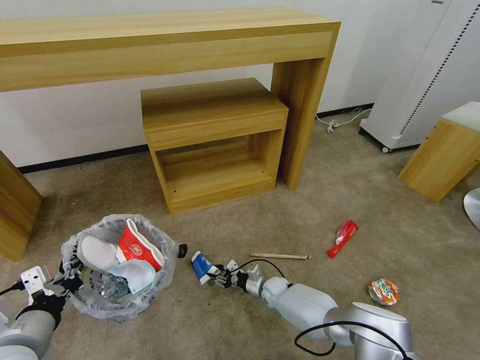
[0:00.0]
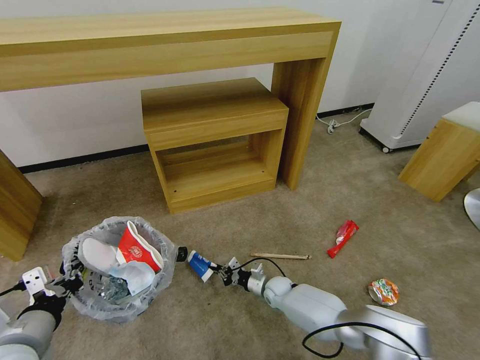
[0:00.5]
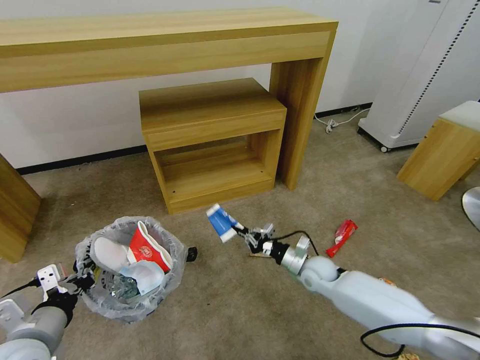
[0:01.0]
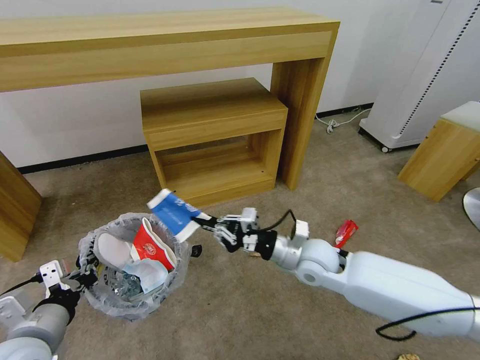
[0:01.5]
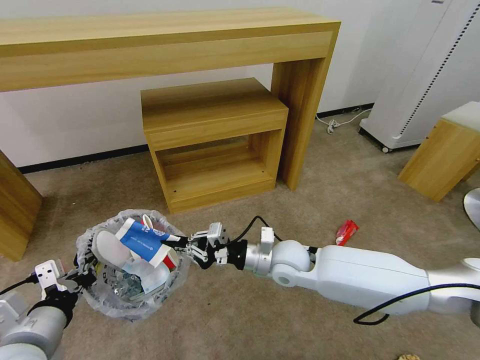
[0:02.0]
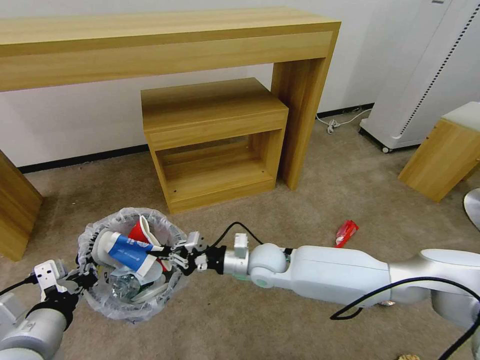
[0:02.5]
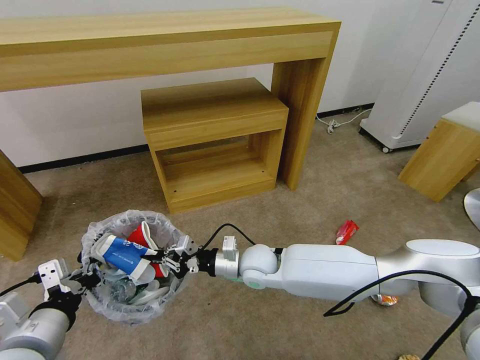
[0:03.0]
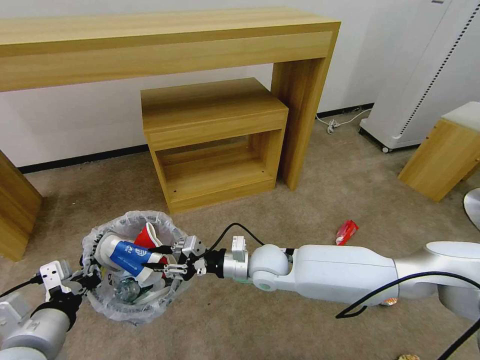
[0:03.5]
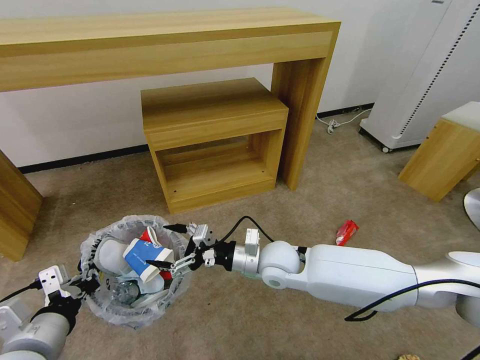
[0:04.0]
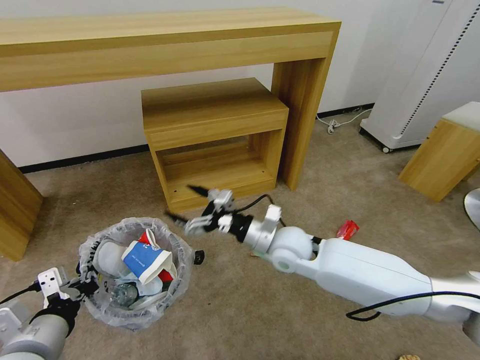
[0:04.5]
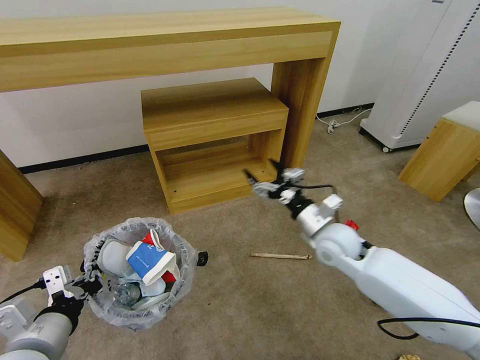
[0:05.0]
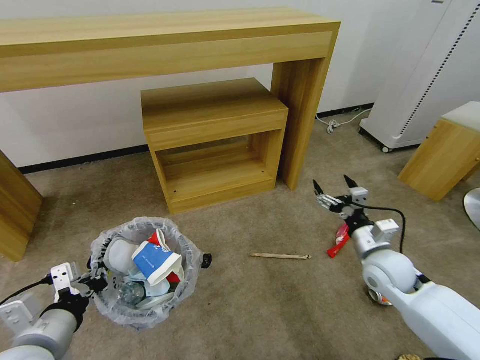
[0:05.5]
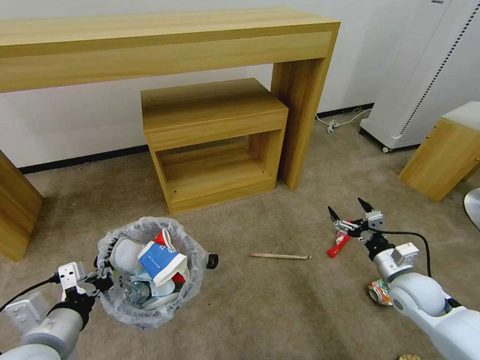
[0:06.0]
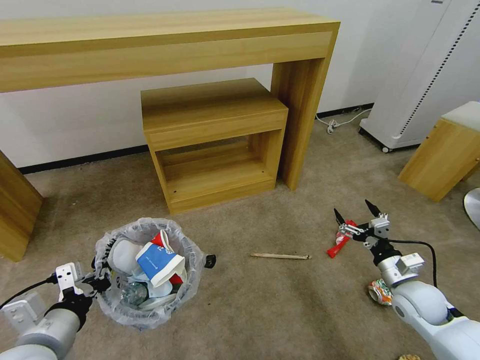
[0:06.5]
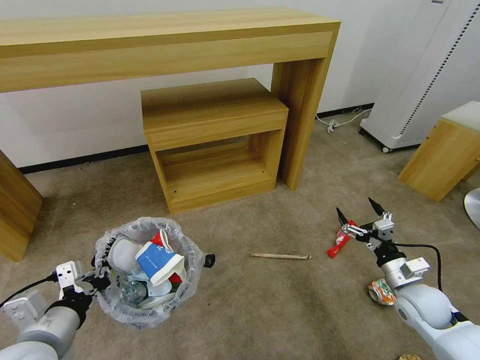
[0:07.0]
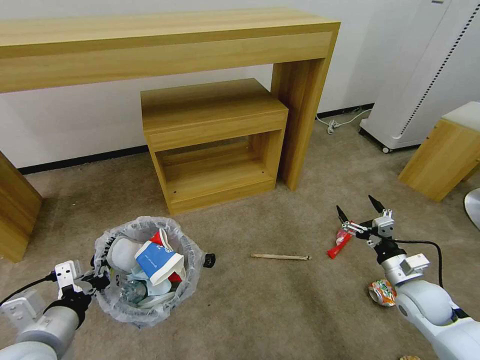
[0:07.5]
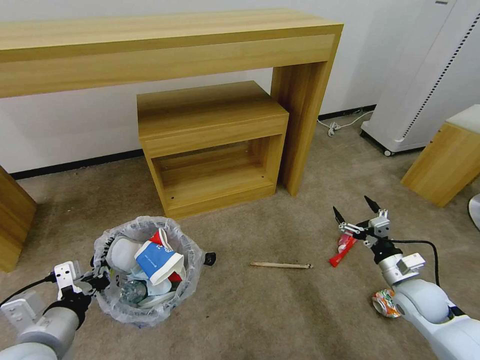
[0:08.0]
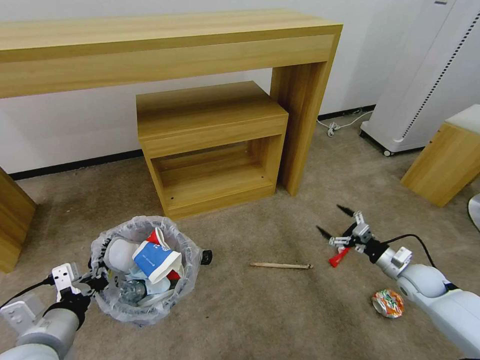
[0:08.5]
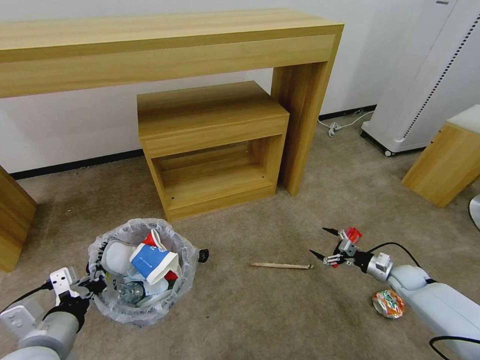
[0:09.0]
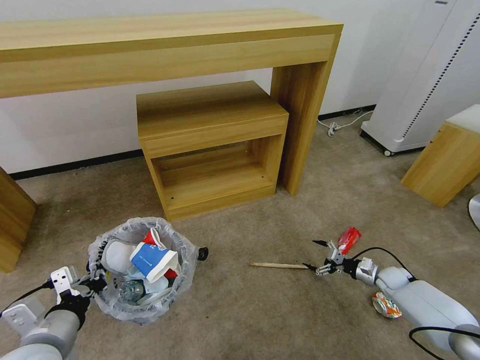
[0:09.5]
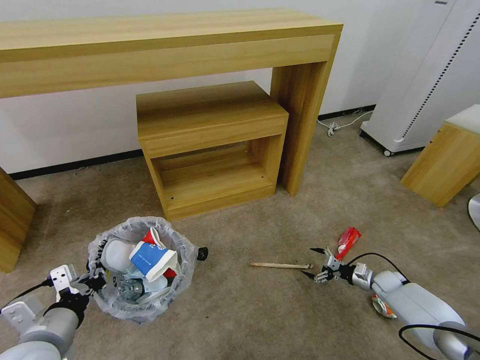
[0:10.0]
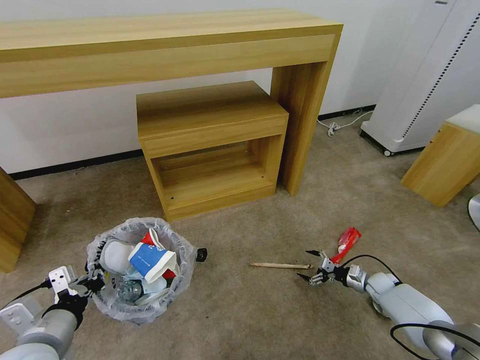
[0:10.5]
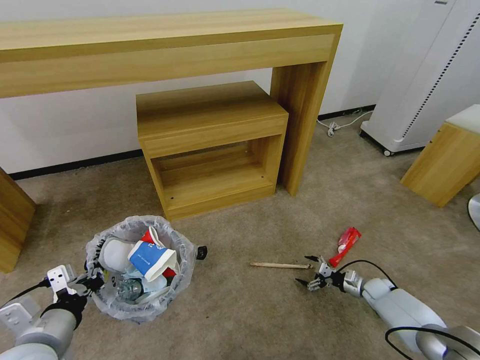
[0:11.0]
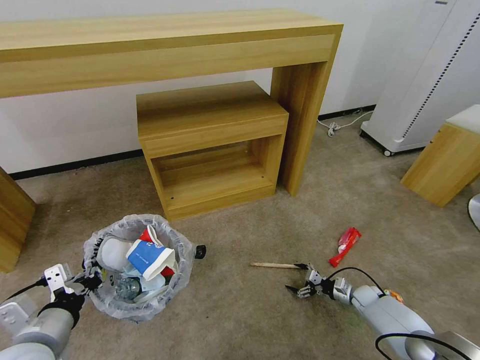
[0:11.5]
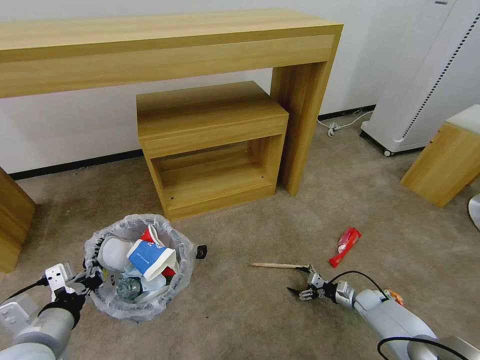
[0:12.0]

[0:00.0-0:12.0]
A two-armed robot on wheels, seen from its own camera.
Task of the whole recording: Pick up the trash bin and place the garbage on the floor into it.
0:00.0 to 0:02.0: The right gripper moves upward, roughly 30 cm, and closes its fingers.
0:02.0 to 0:04.0: The right gripper opens up.
0:04.0 to 0:06.0: The right gripper goes roughly 30 cm to the right.
0:06.0 to 0:08.0: The grippers move only a little.
0:08.0 to 0:10.0: The right gripper goes some 20 cm downward, forward and to the right.
0:10.0 to 0:12.0: The right gripper travels downward and to the left by some 10 cm.

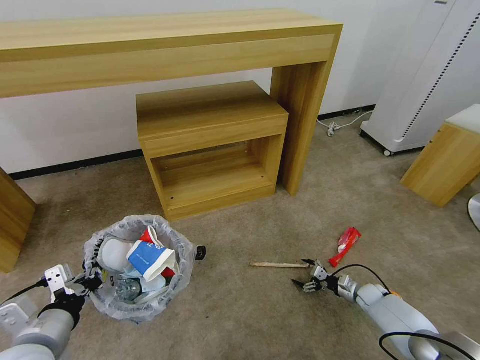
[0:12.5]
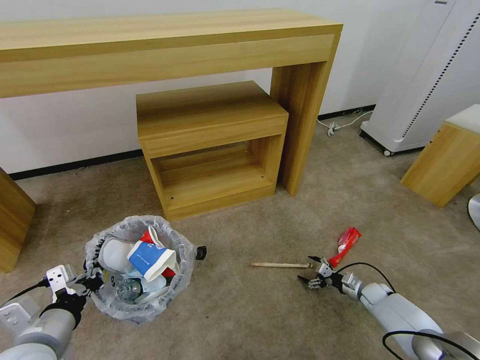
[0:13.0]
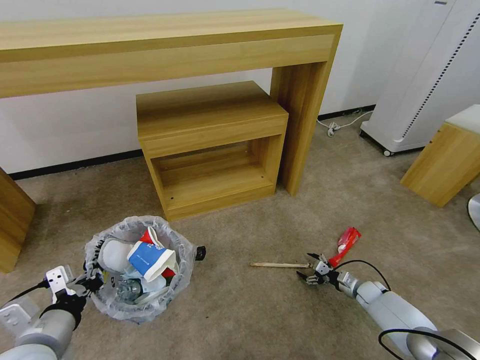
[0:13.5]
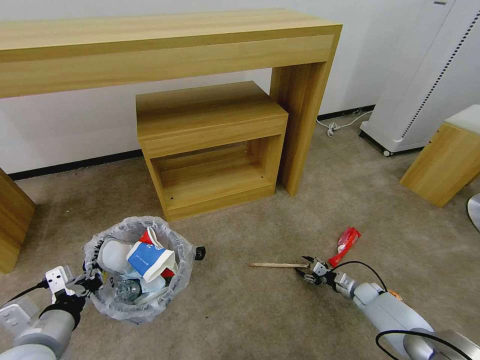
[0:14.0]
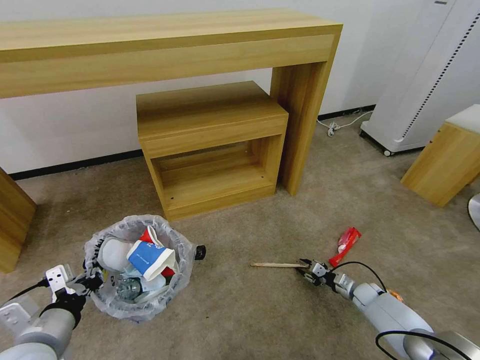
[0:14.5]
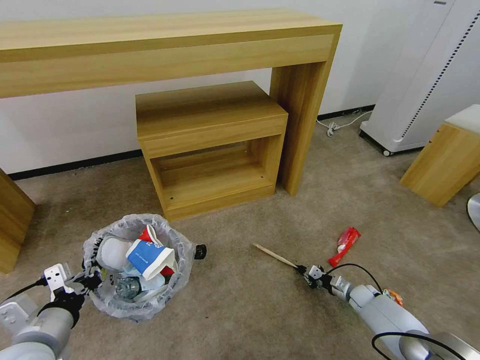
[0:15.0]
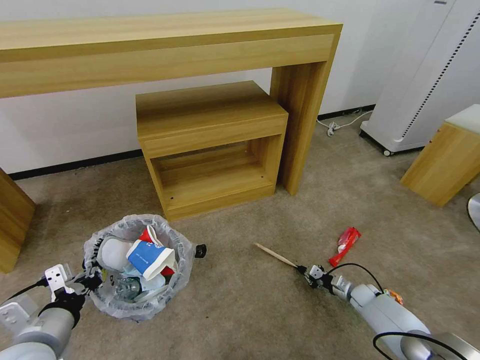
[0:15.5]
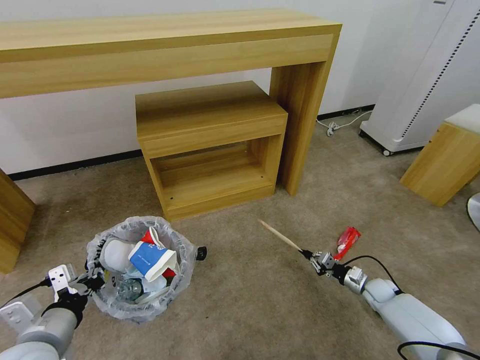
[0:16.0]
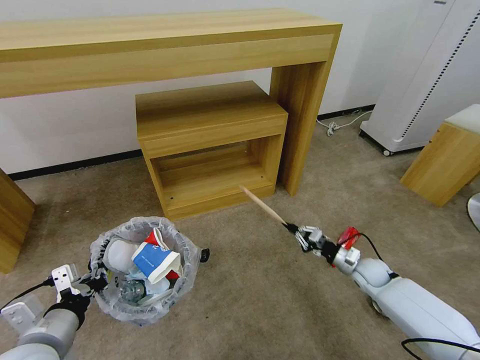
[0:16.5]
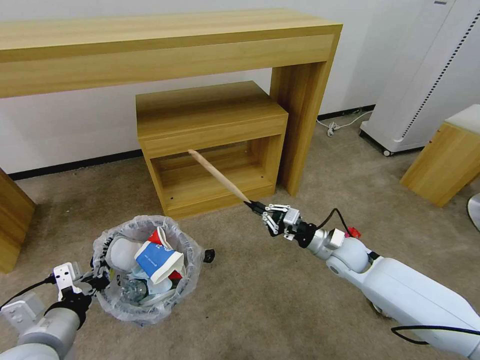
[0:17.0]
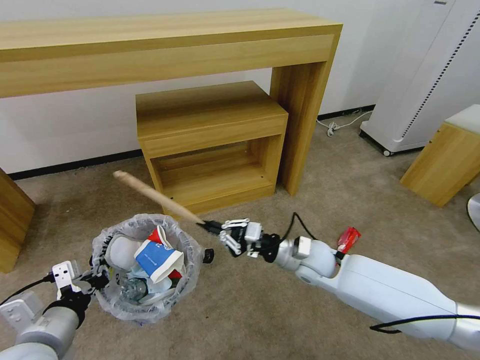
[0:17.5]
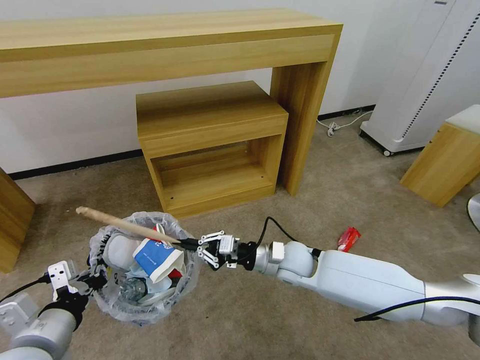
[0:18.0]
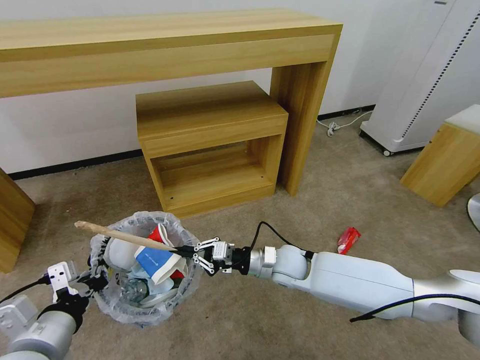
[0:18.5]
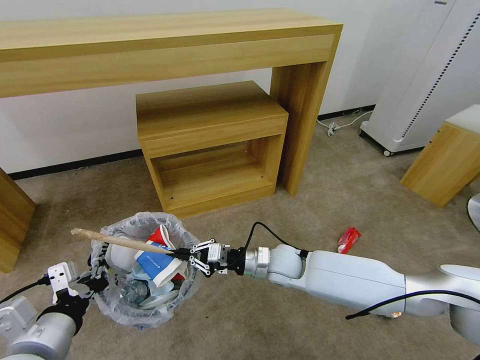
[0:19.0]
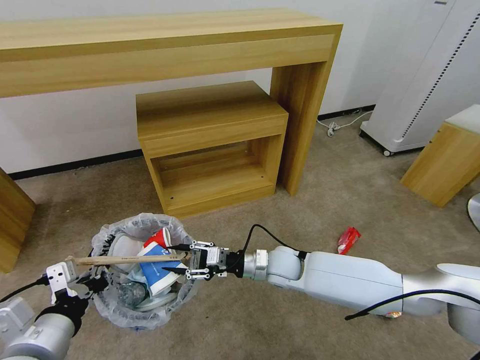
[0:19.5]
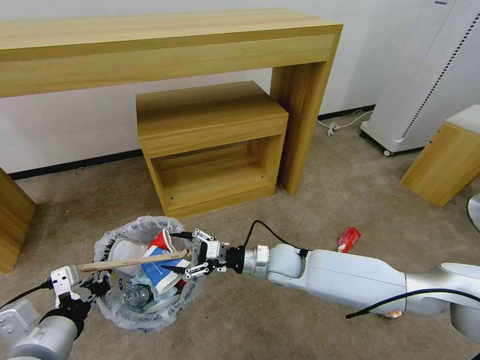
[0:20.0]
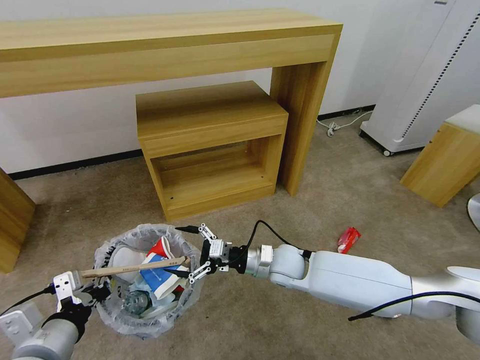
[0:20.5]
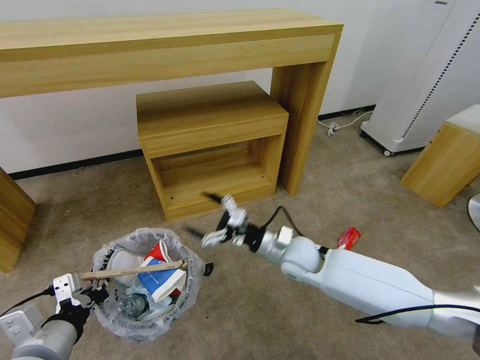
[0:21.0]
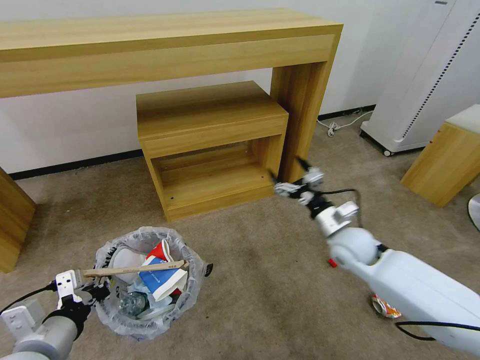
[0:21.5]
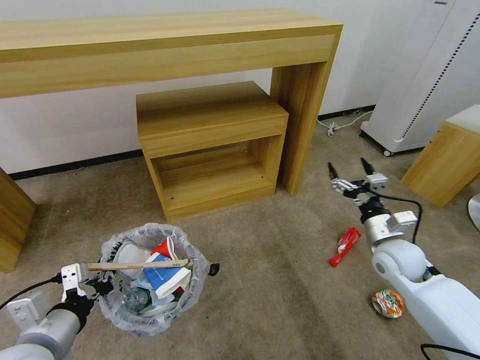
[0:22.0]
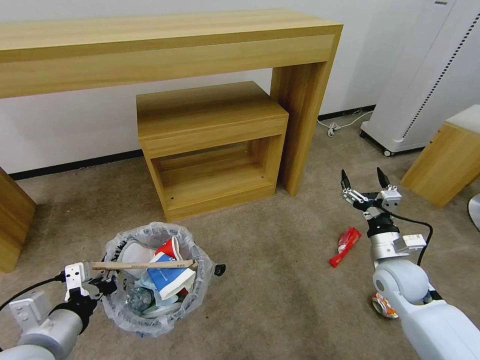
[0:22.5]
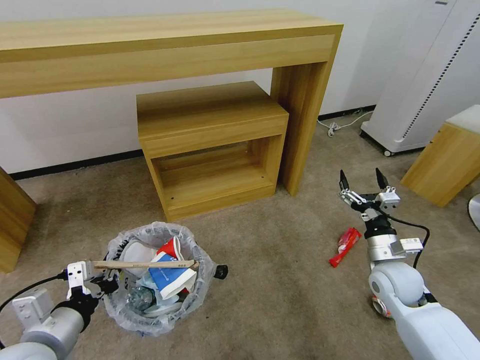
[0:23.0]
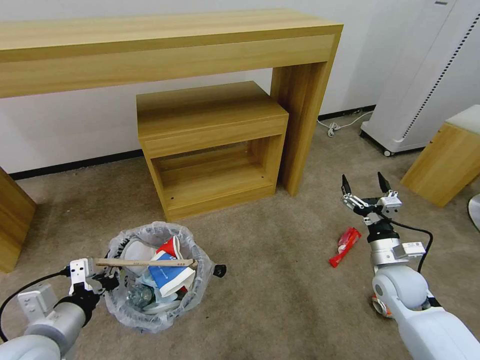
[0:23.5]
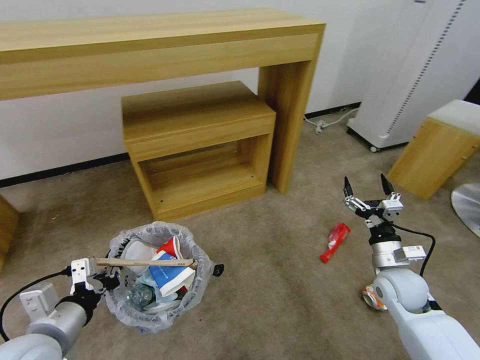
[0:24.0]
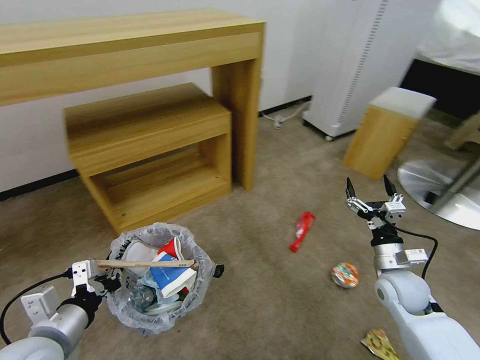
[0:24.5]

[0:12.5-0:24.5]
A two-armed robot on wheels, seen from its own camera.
Task of the whole recording: Pick up the trash bin and place the garbage on the floor into it.
0:12.5 to 0:14.5: The right gripper closes up.
0:14.5 to 0:16.5: The right gripper heads upward and to the left, covering roughly 15 cm, and closes up.
0:16.5 to 0:18.5: The right gripper travels to the left by about 25 cm.
0:18.5 to 0:20.5: The right gripper opens.
0:20.5 to 0:22.5: The right gripper heads to the right, covering approximately 25 cm.

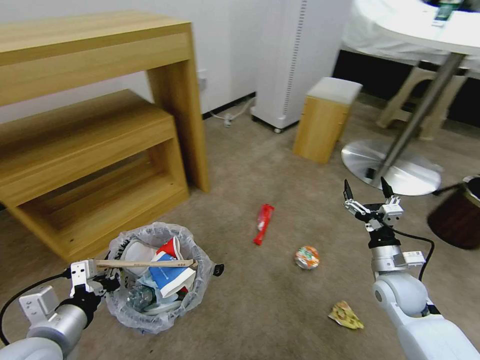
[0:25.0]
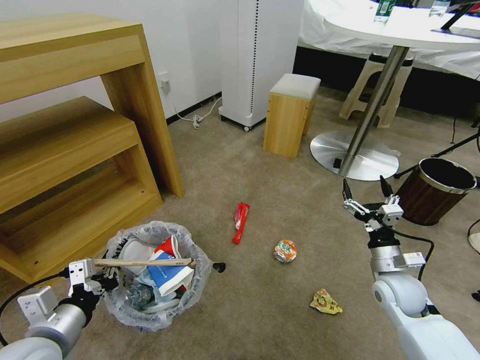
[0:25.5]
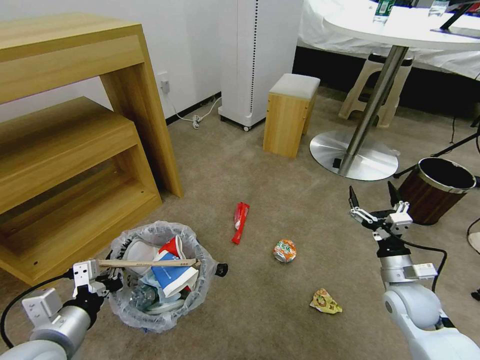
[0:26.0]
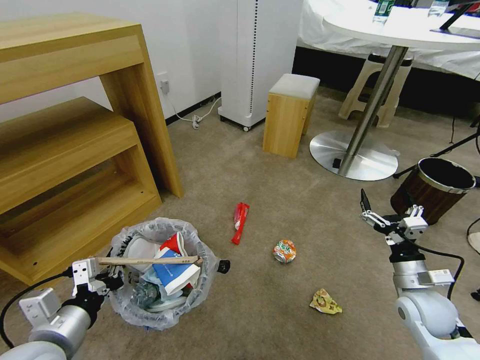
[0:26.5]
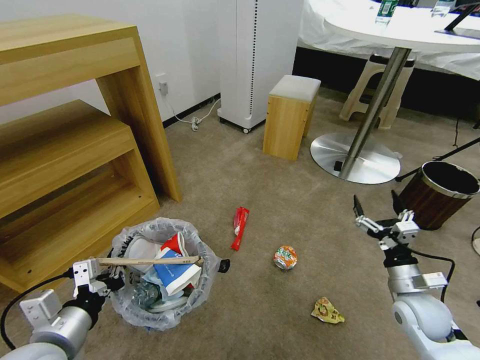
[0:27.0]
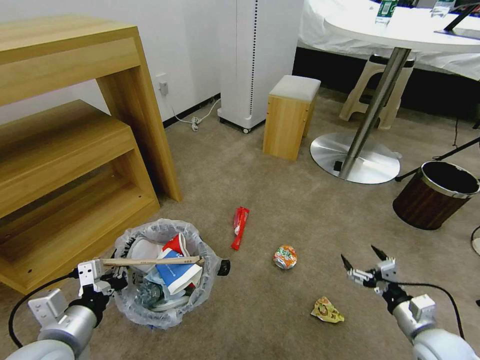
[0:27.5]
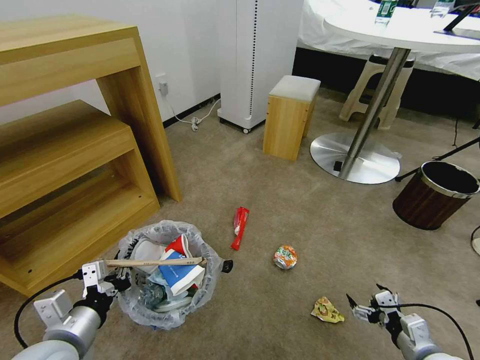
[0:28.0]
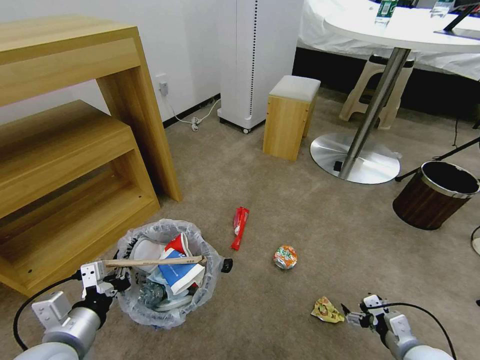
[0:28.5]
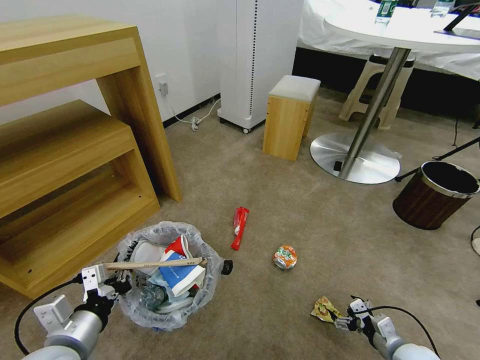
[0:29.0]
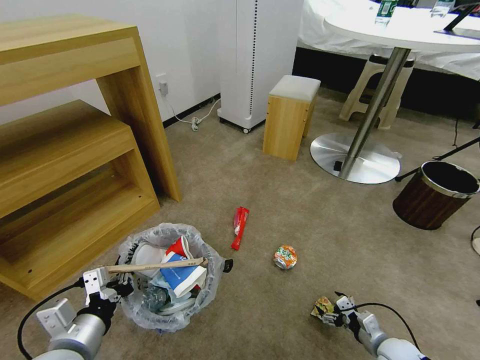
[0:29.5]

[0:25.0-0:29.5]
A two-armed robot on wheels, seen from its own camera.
Task of the whole recording: Pick up the trash bin and place the garbage on the floor into it.
0:25.0 to 0:27.0: The right gripper changes place by about 5 cm.
0:27.0 to 0:29.5: The right gripper heads downward, covering roughly 15 cm.
